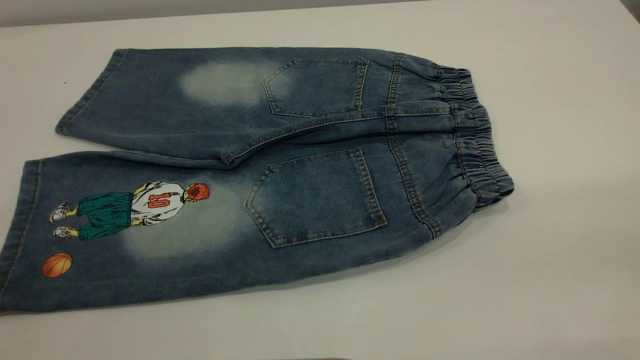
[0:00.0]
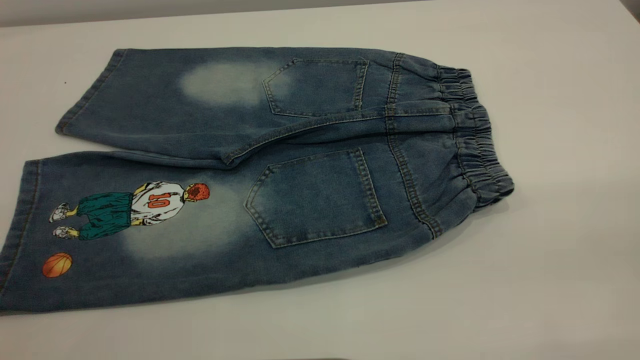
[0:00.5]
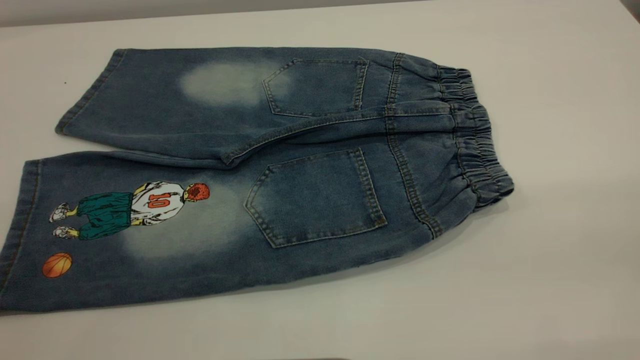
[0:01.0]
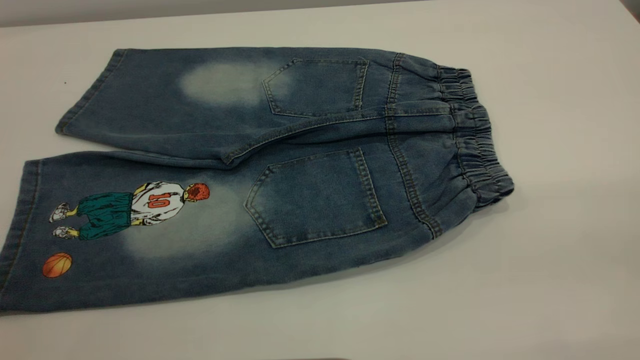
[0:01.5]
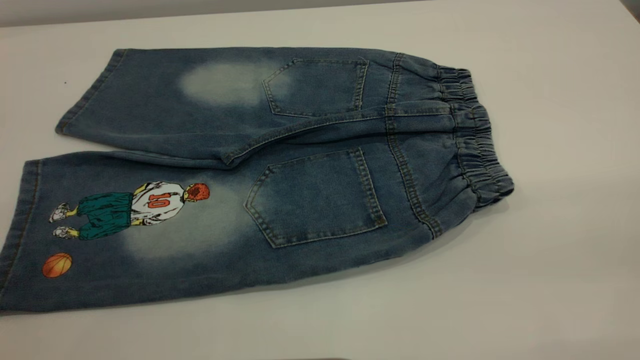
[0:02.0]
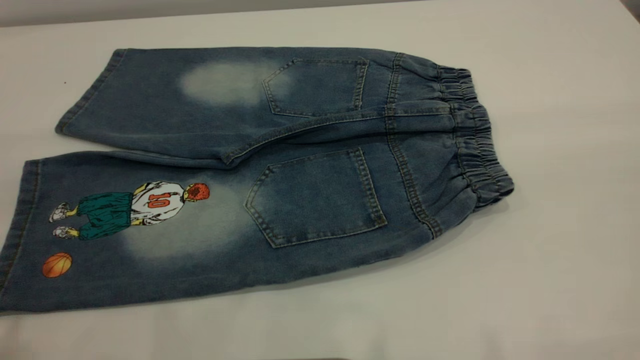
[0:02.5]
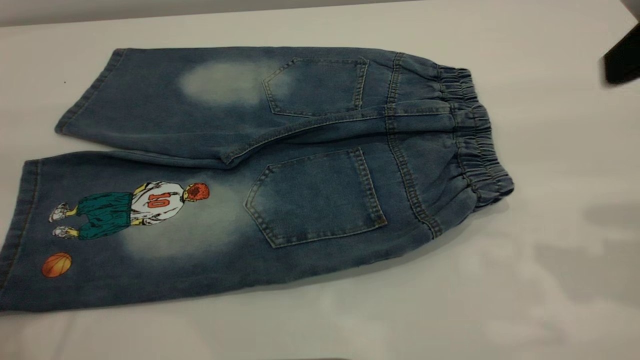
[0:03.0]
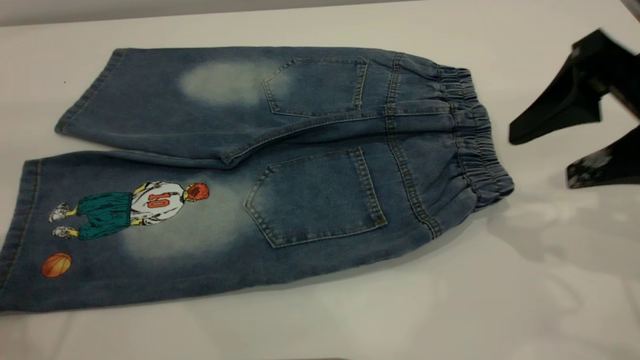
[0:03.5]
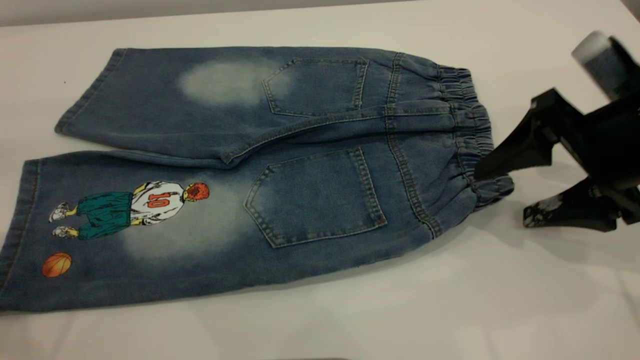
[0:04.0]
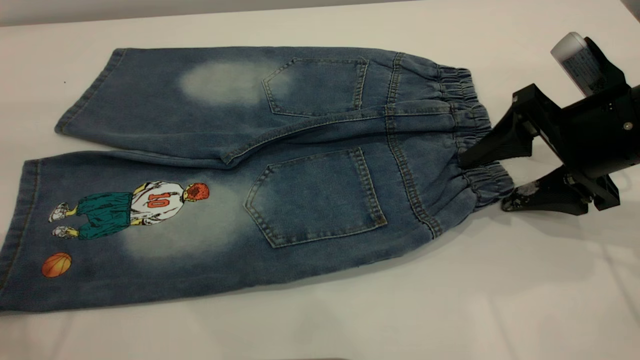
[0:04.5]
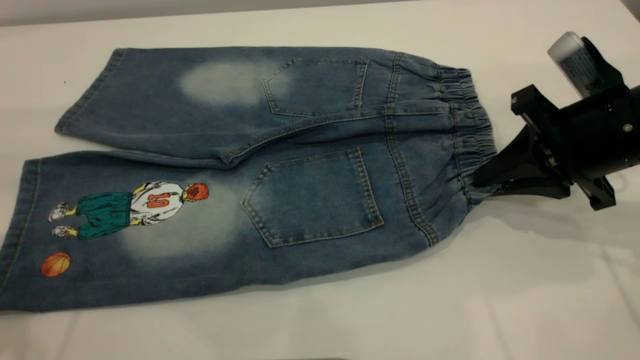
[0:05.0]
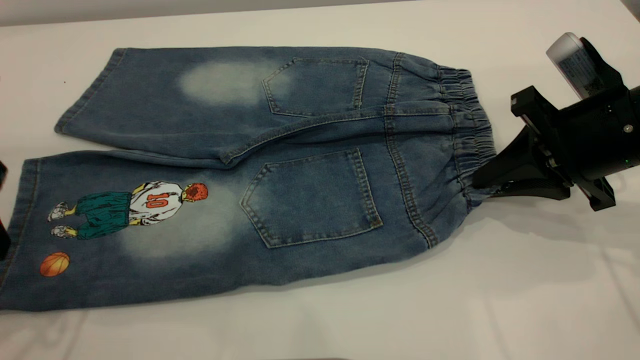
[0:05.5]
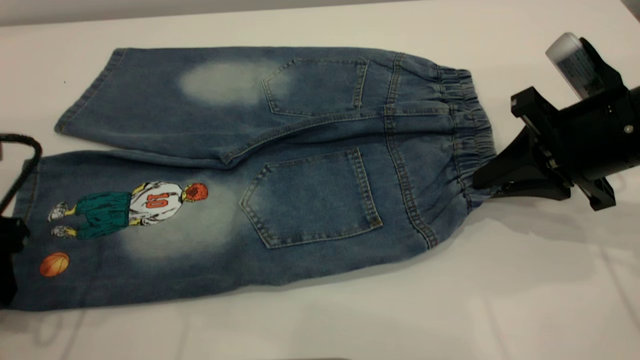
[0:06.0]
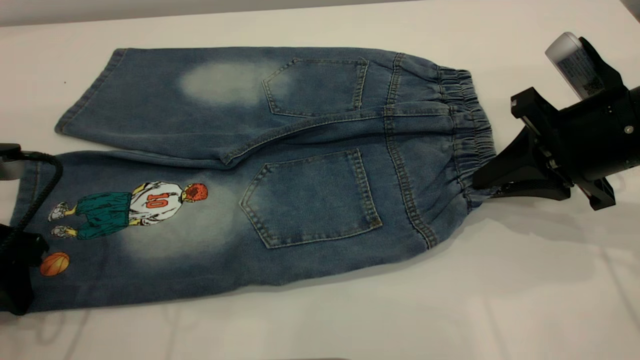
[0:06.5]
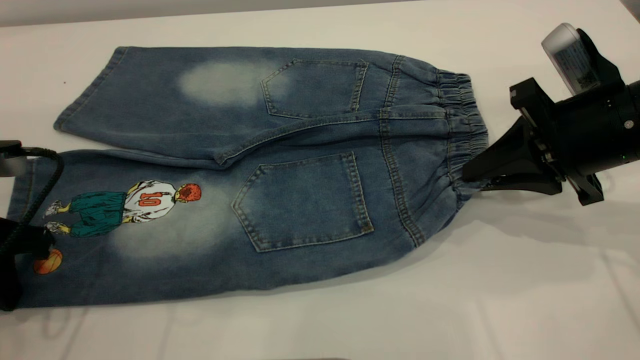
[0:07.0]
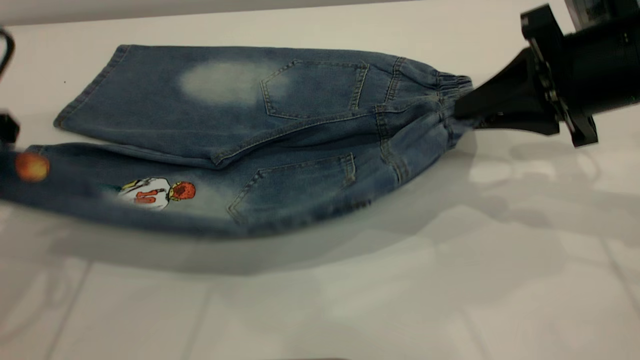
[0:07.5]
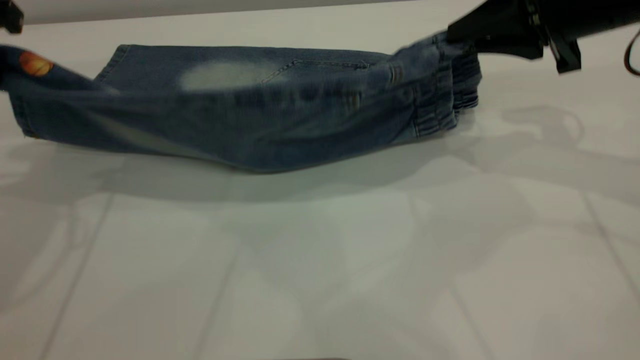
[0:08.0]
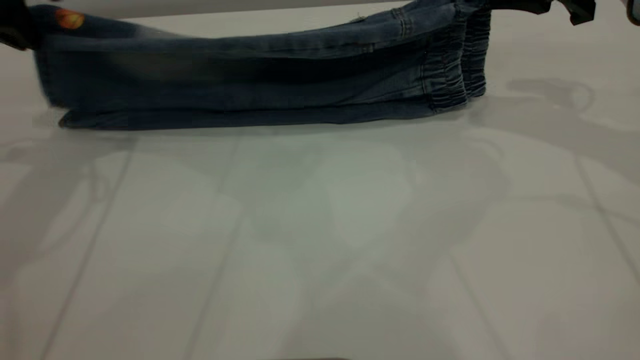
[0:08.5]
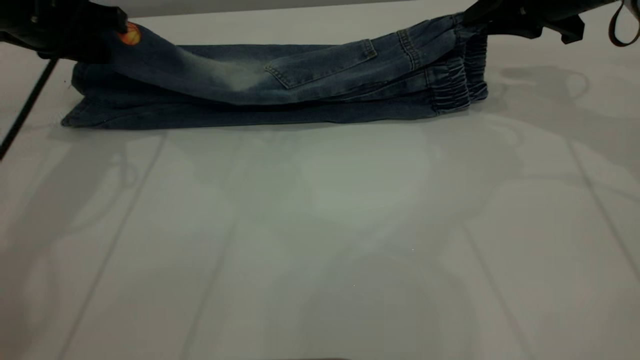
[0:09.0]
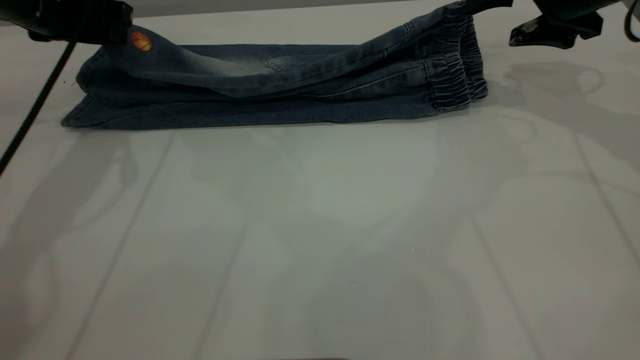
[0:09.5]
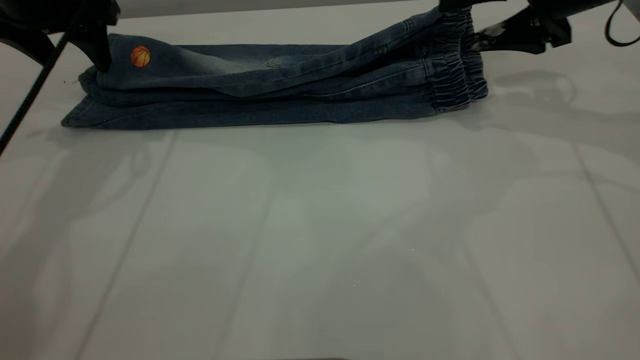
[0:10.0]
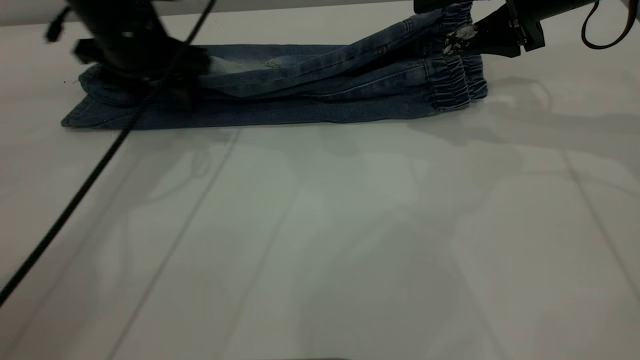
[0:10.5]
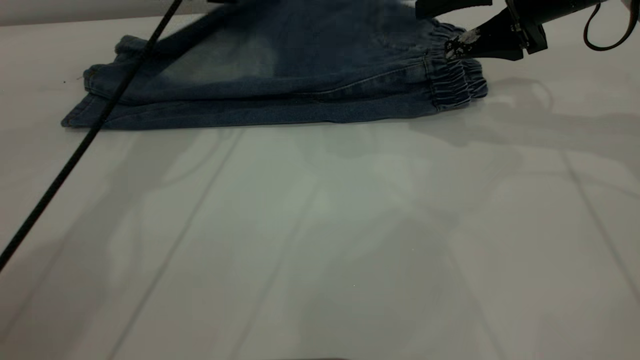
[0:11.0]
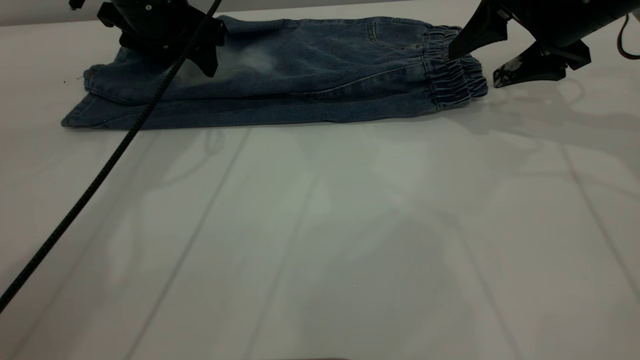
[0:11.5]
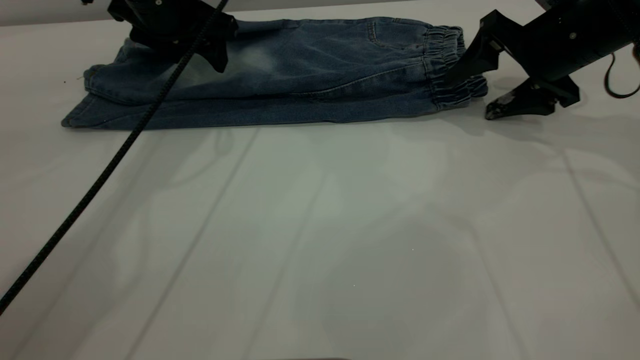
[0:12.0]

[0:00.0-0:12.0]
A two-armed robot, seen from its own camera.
Step, 0:00.0 to 0:09.5: Fold the bottom of the pants upward.
0:00.0 to 0:02.0: Neither gripper changes place.
0:02.0 to 0:04.0: The right gripper shifts about 35 cm forward and downward.
0:04.0 to 0:06.0: The right gripper closes; the left gripper travels downward by approximately 15 cm.
0:06.0 to 0:08.0: The two grippers go approximately 15 cm upward and forward. The left gripper closes.
0:08.0 to 0:10.0: The two grippers go approximately 5 cm forward. The right gripper opens its fingers; the left gripper opens its fingers.
0:10.0 to 0:12.0: The right gripper shifts some 5 cm downward. The left gripper moves to the right, roughly 10 cm.

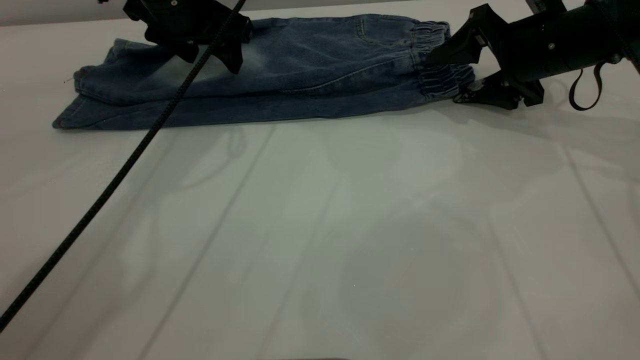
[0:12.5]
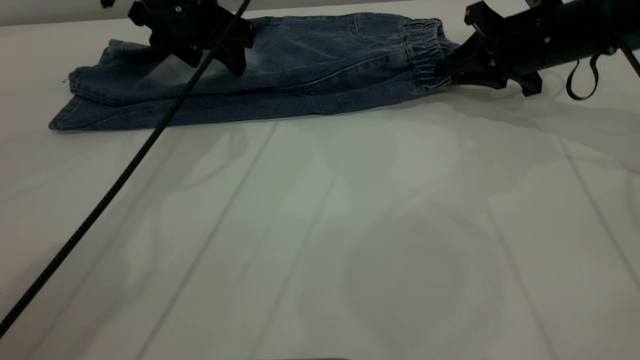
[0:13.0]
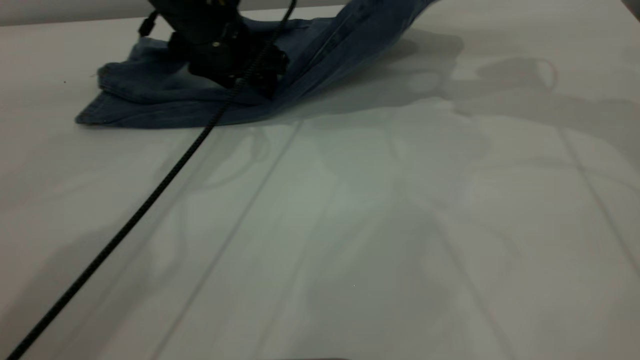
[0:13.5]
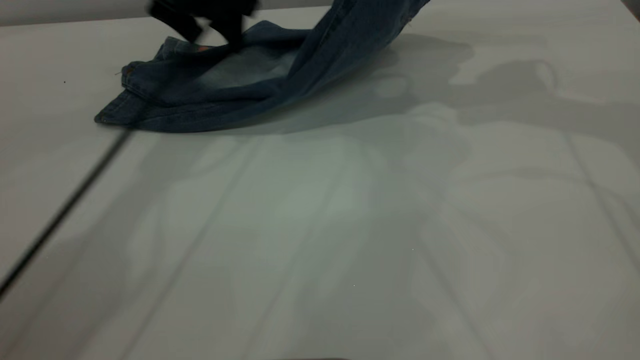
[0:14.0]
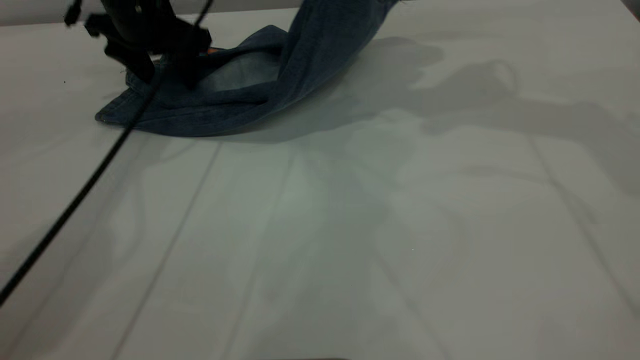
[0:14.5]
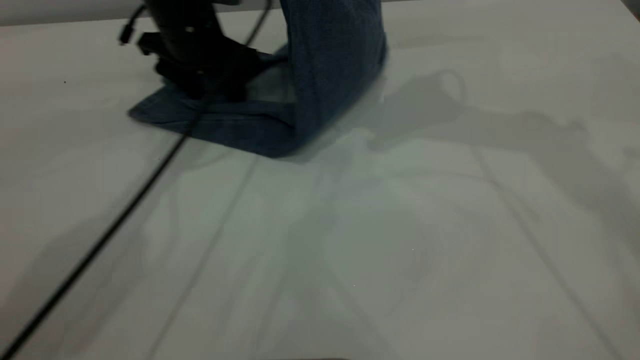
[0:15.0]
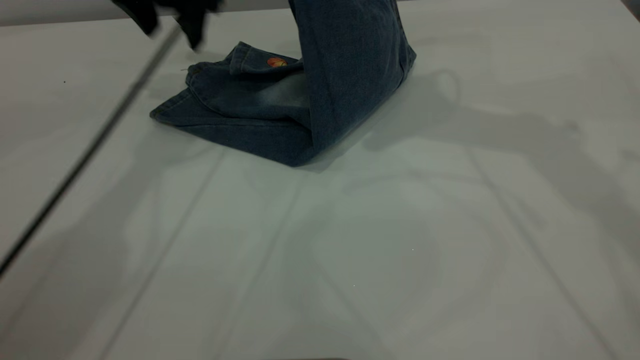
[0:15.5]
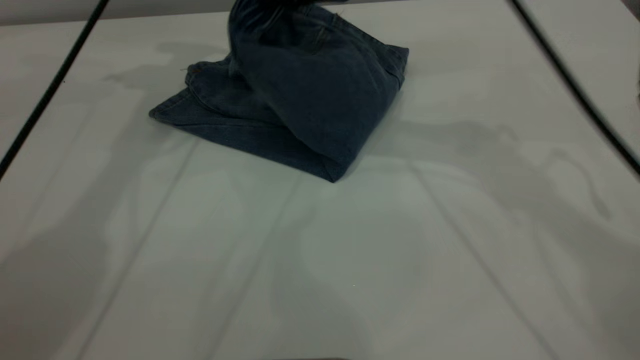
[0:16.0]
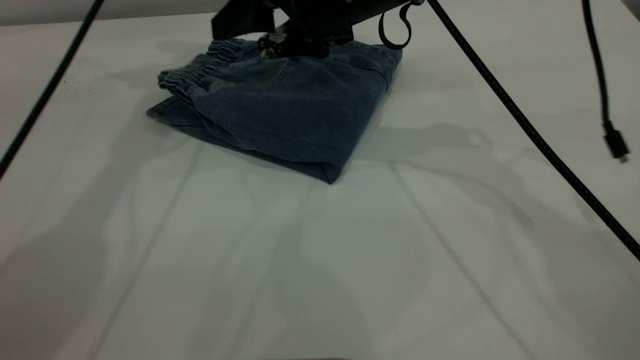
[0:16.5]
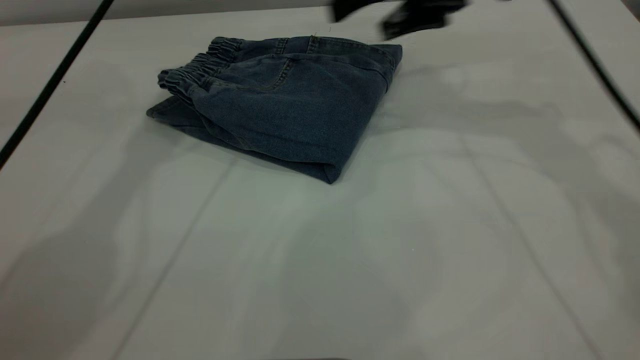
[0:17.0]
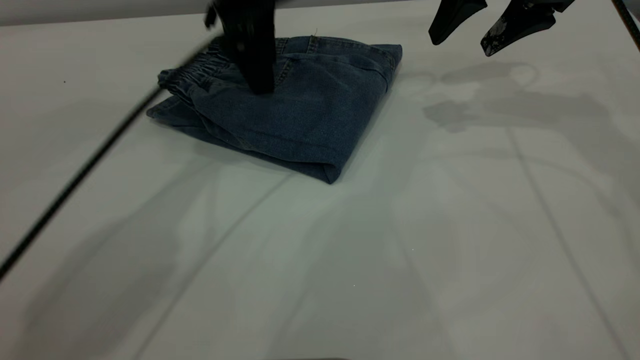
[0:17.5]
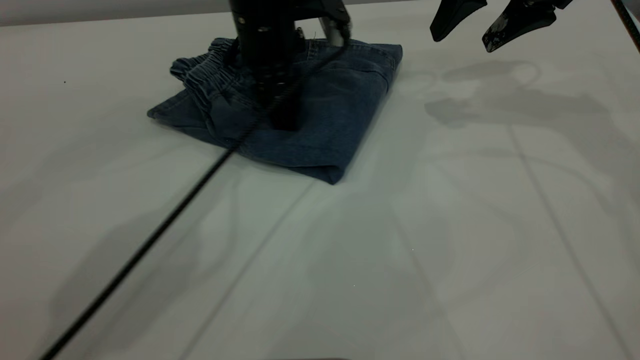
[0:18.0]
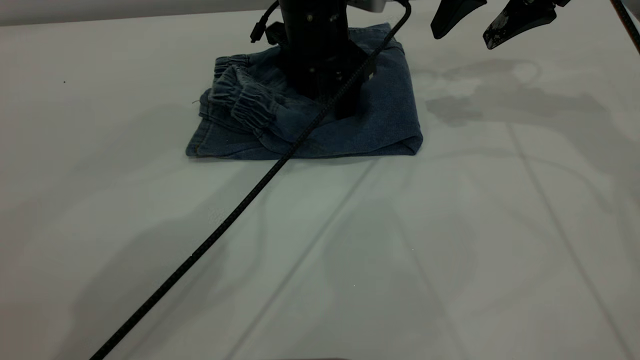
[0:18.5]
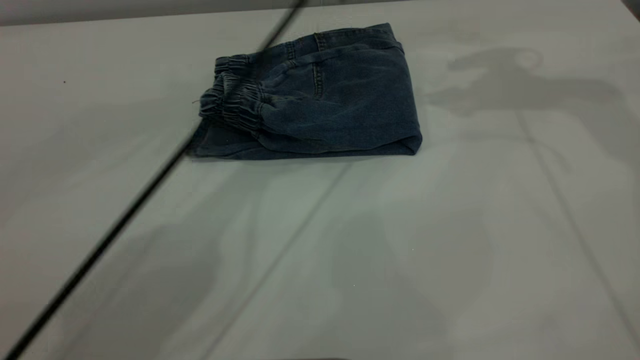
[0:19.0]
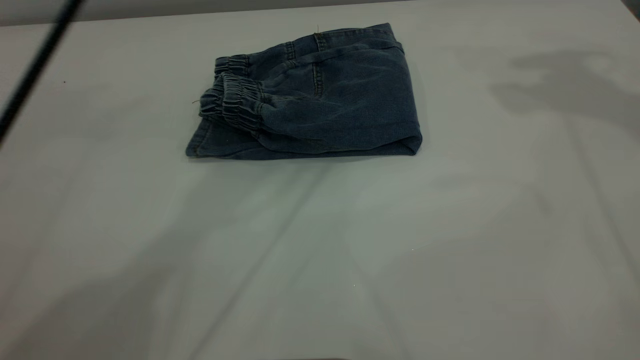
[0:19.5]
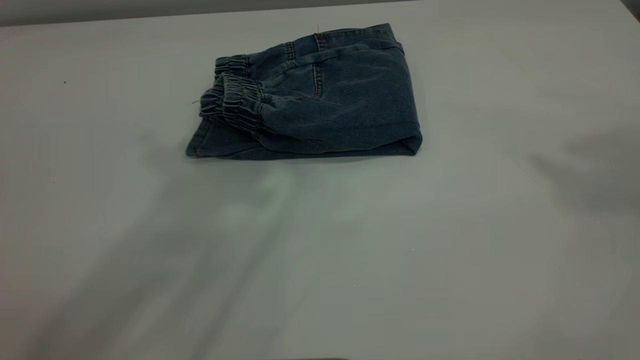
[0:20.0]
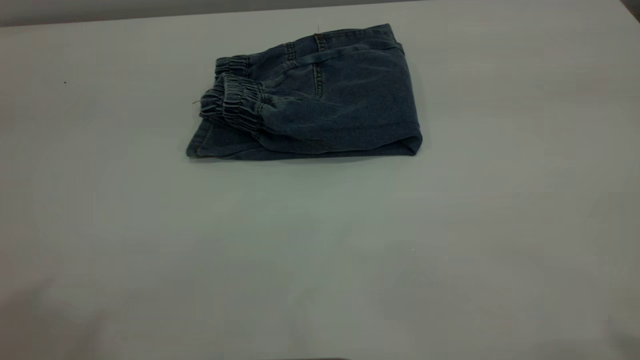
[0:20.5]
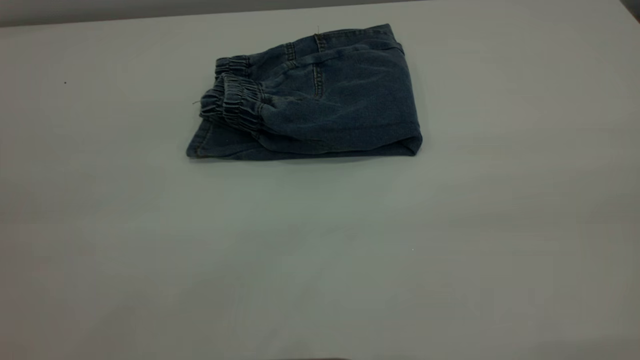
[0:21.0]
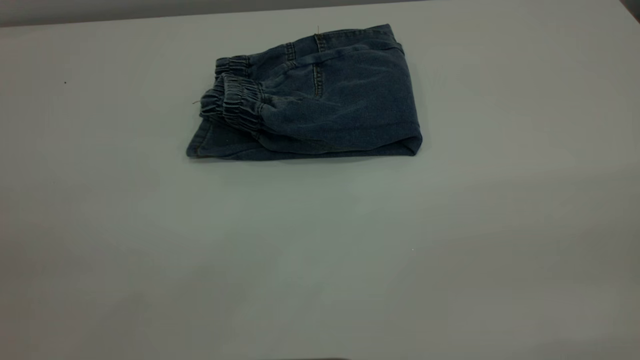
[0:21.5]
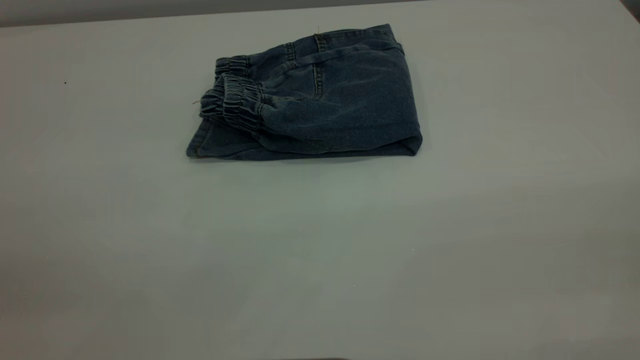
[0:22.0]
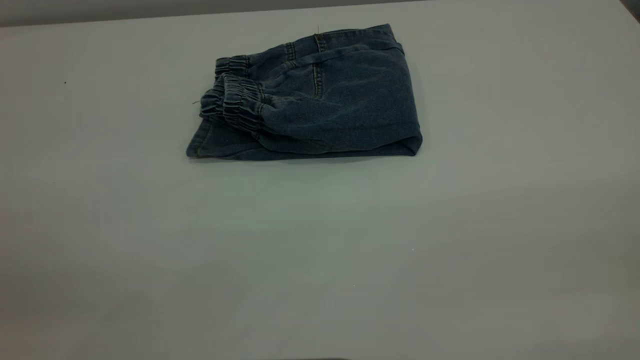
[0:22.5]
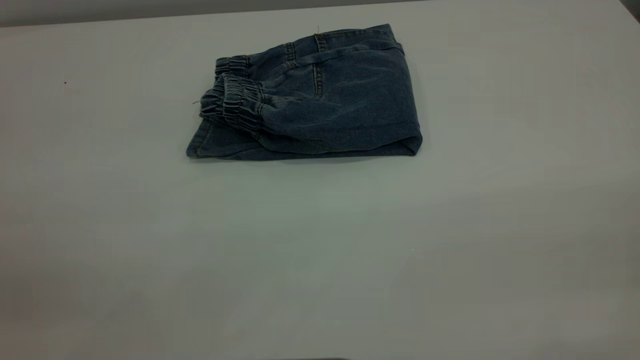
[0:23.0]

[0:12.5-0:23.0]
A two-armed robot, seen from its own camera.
Step, 0:12.5 to 0:16.5: Fold your pants from right to left.
0:12.5 to 0:14.5: The right gripper is displaced upward by roughly 20 cm, and closes up; the left gripper shifts by roughly 5 cm.
0:14.5 to 0:16.5: The left gripper shifts about 15 cm upward, while the right gripper goes some 20 cm to the left and downward, and opens.
0:16.5 to 0:19.0: The right gripper moves to the right and upward, some 25 cm; the left gripper shifts some 20 cm to the right.
0:19.0 to 0:21.0: The left gripper moves backward and to the left, roughly 50 cm.
